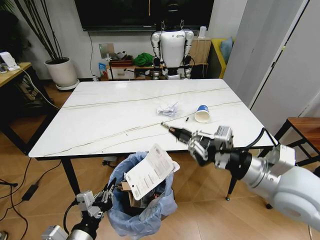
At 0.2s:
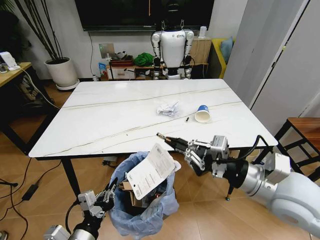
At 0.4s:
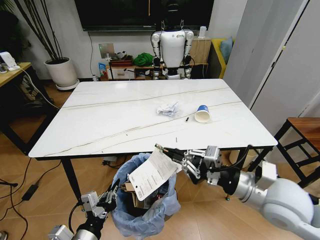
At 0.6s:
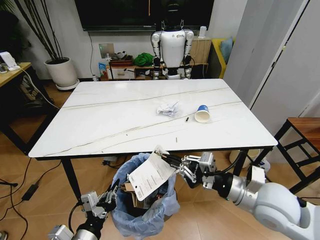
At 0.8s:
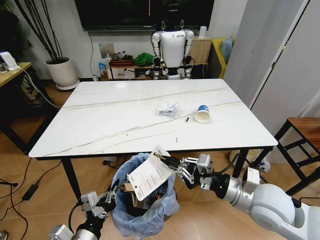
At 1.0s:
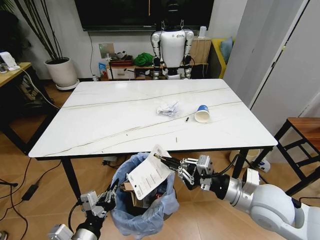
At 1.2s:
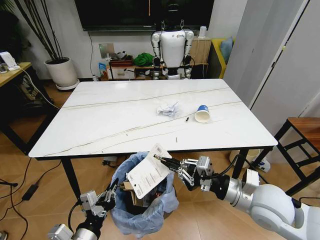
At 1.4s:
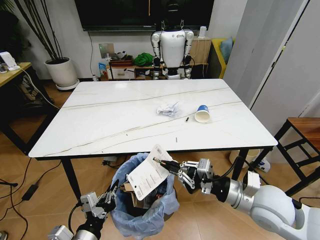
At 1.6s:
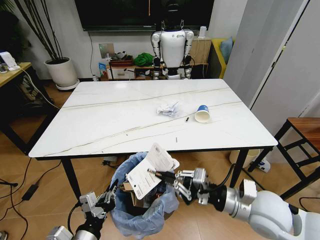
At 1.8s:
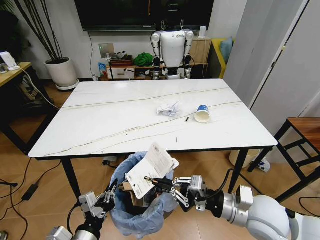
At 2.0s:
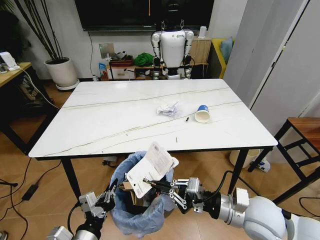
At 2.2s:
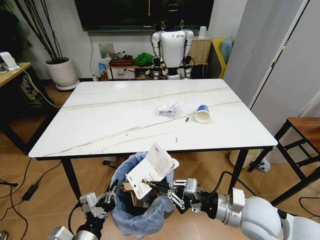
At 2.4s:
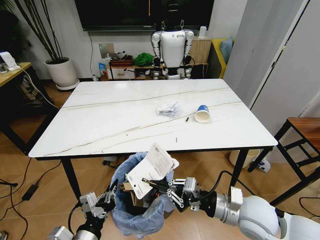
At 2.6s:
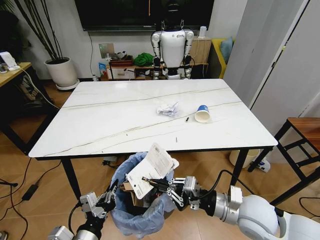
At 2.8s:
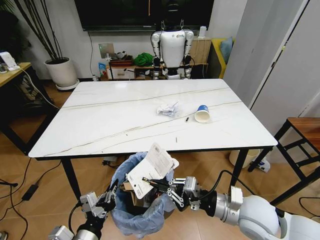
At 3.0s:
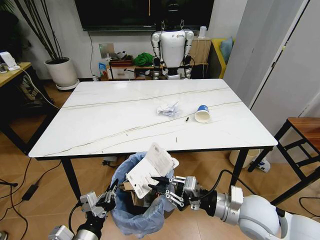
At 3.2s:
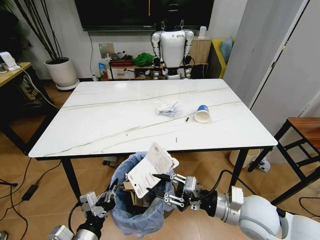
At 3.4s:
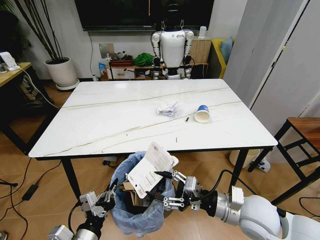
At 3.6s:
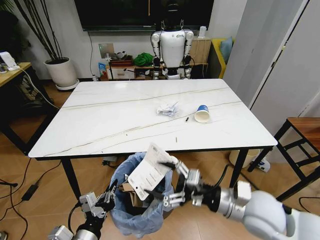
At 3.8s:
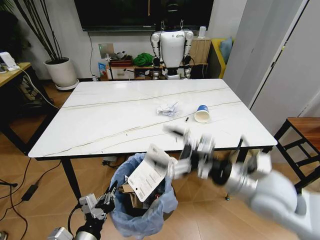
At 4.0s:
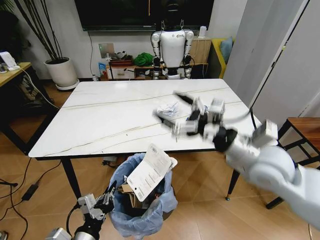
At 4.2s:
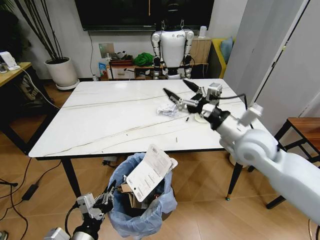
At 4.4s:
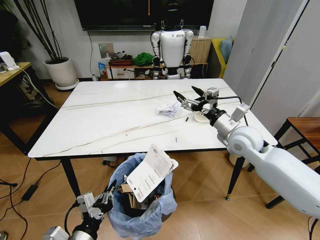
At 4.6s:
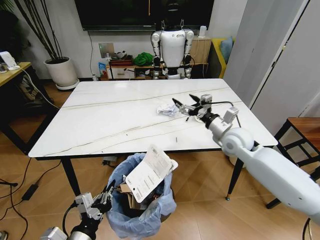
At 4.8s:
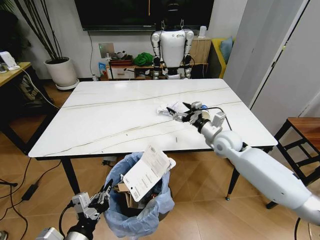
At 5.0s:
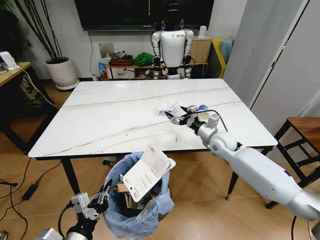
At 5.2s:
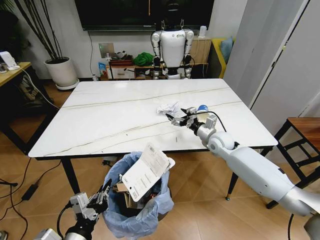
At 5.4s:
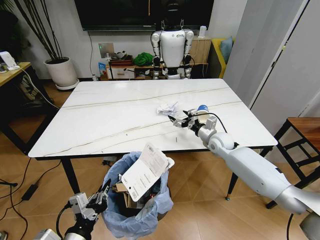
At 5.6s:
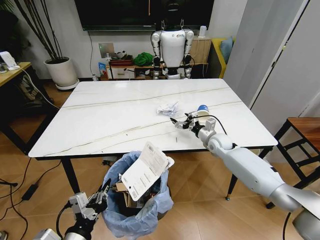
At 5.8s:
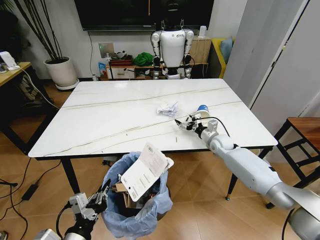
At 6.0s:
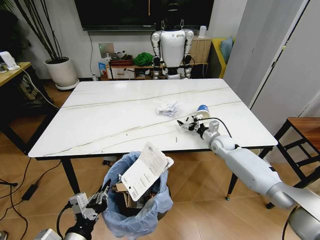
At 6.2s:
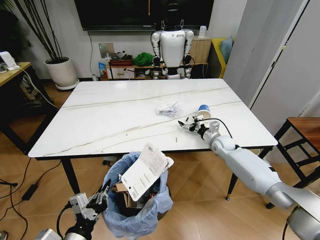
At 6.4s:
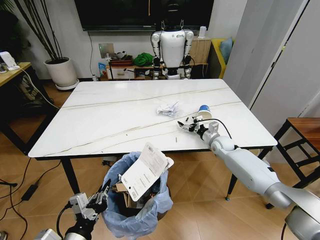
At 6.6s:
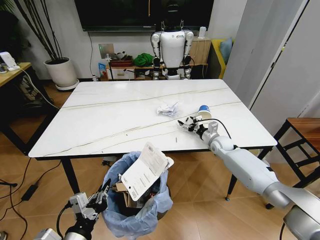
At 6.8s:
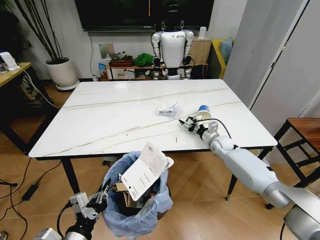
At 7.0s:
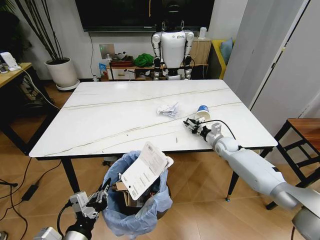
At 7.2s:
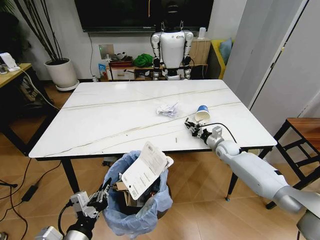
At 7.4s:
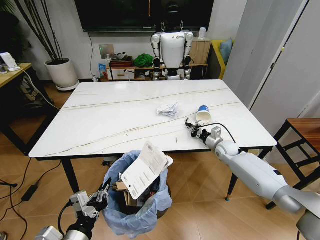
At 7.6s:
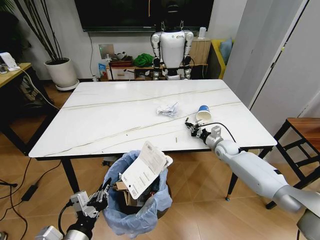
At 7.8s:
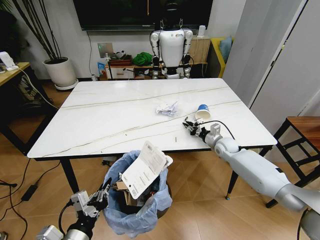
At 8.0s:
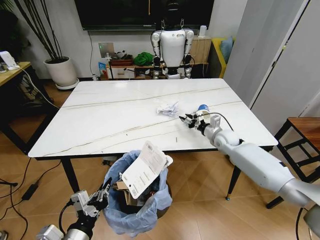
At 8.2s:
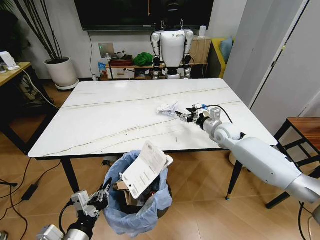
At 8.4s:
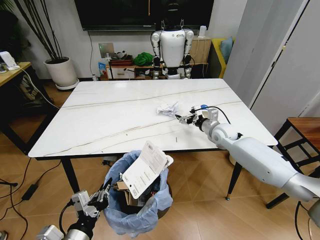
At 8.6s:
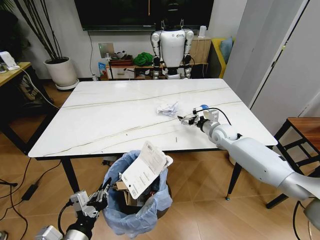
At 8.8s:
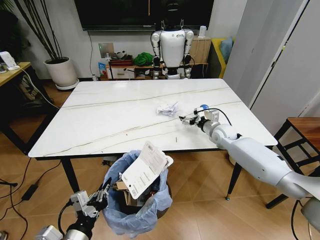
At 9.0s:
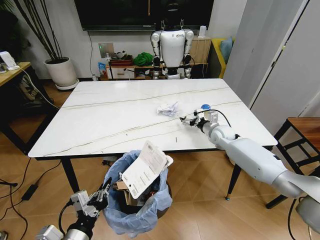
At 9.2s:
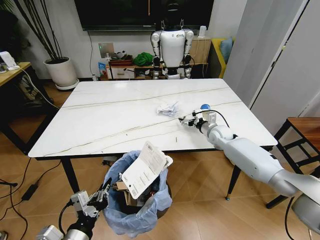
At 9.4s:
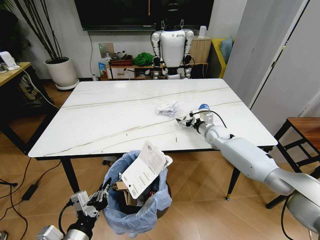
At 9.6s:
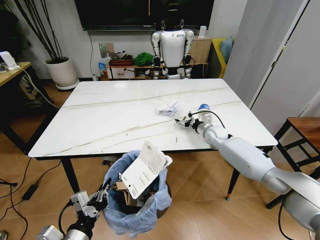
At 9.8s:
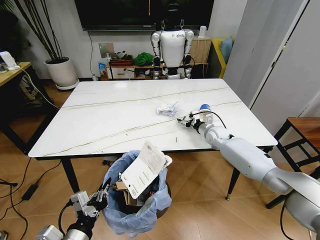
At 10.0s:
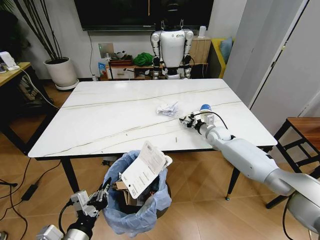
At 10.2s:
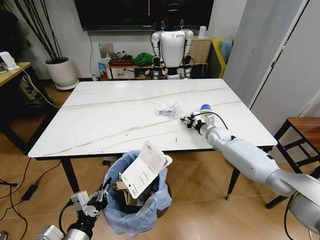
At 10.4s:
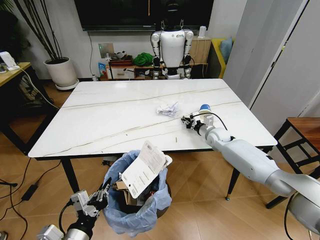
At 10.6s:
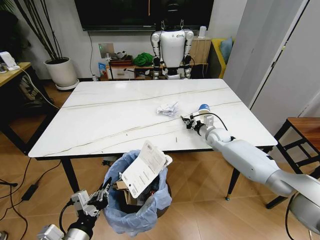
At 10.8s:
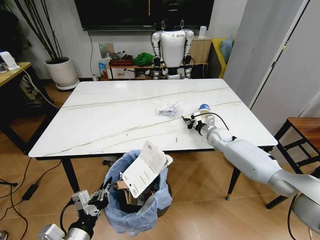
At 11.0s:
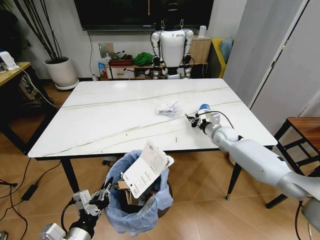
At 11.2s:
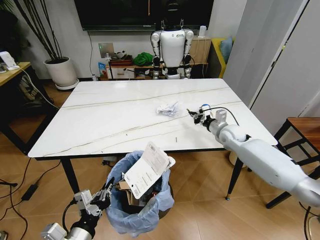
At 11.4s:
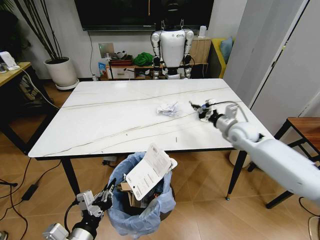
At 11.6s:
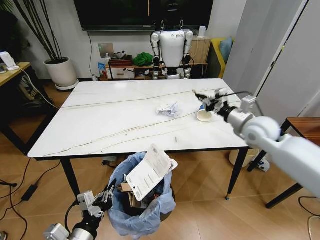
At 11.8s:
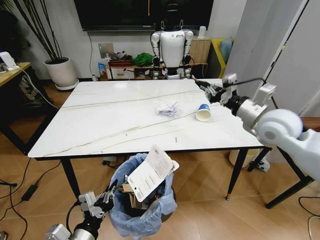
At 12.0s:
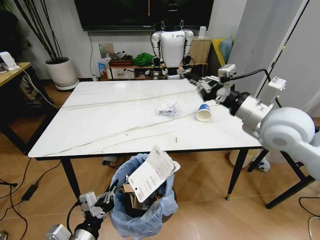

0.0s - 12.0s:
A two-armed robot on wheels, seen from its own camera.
Task of the whole recording: Pick up the trash bin and place the trash from the table into it.
0.0s - 1.6s: The right gripper goes roughly 10 cm downward.
1.6s - 3.0s: There are only small adjustments of the grippers.
3.0s - 4.4s: The right gripper moves forward and upward, about 20 cm, and opens its fingers.
4.4s - 6.0s: The right gripper shifts about 25 cm downward and forward.
6.0s - 7.6s: The right gripper closes.
7.6s - 9.0s: The right gripper moves upward, approximately 5 cm, and opens.
9.0s - 10.4s: The right gripper closes up.
10.4s - 12.0s: The right gripper shifts some 35 cm upward and backward.

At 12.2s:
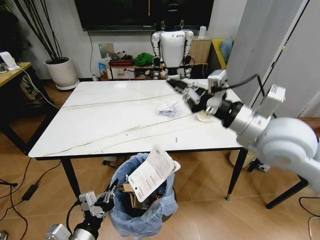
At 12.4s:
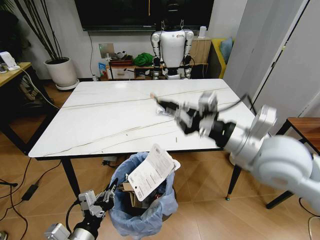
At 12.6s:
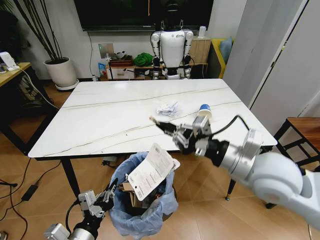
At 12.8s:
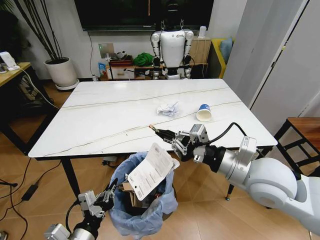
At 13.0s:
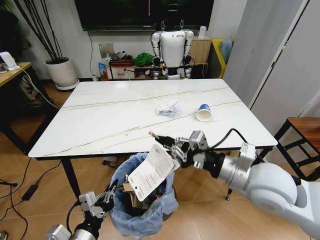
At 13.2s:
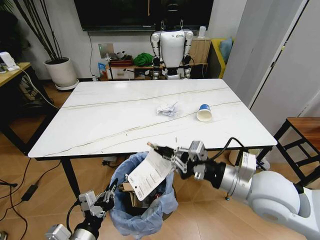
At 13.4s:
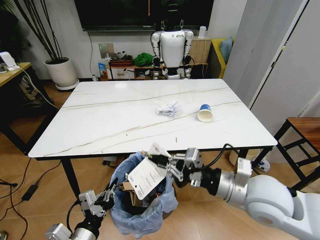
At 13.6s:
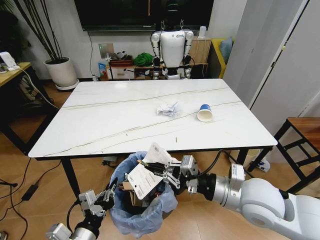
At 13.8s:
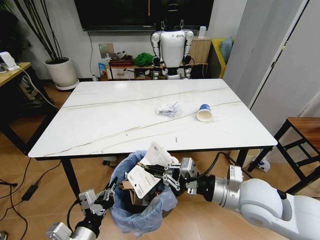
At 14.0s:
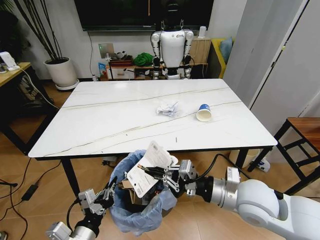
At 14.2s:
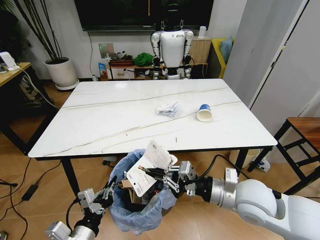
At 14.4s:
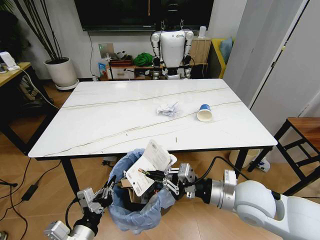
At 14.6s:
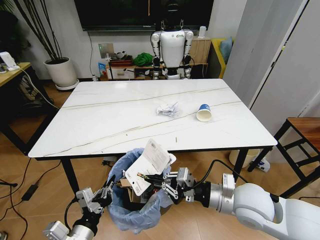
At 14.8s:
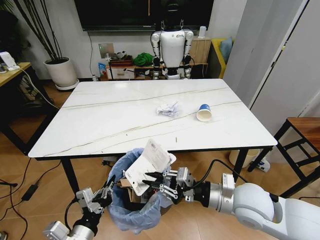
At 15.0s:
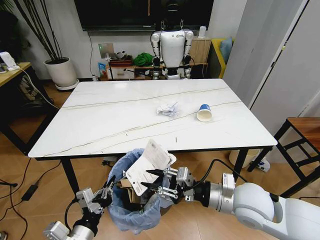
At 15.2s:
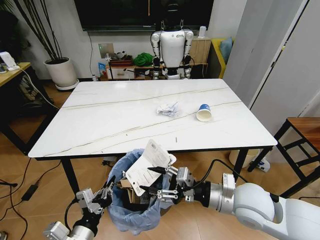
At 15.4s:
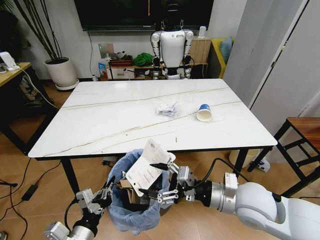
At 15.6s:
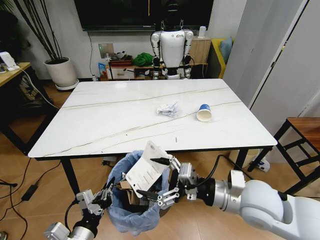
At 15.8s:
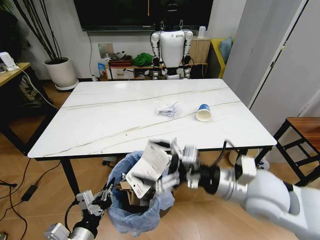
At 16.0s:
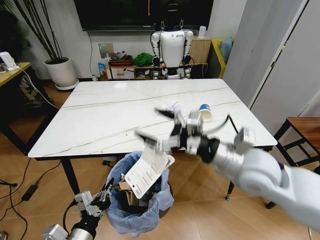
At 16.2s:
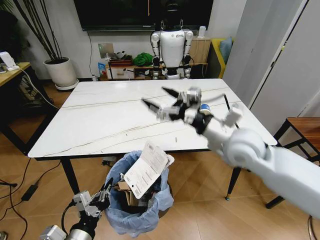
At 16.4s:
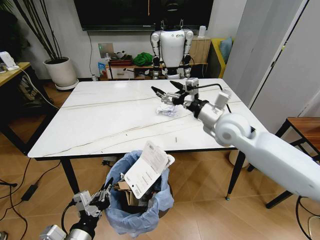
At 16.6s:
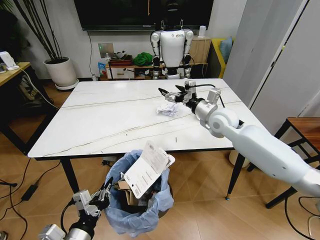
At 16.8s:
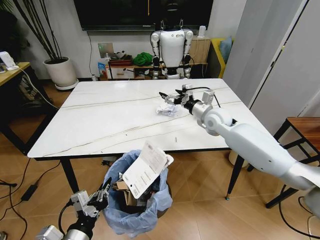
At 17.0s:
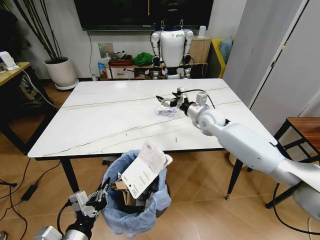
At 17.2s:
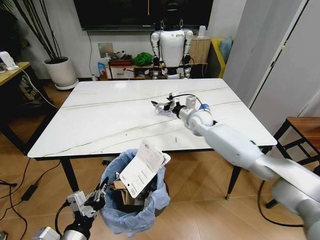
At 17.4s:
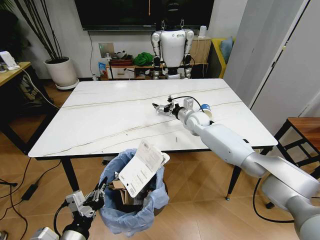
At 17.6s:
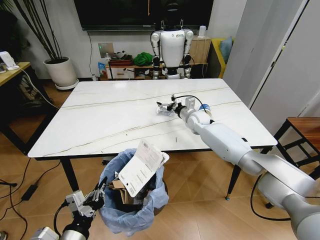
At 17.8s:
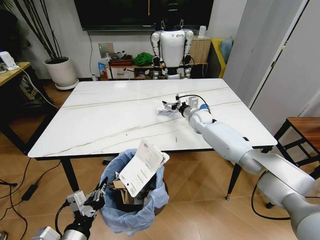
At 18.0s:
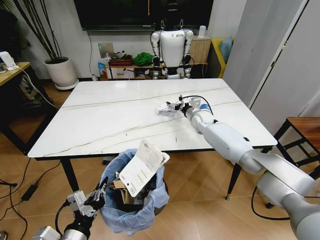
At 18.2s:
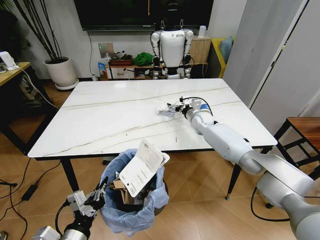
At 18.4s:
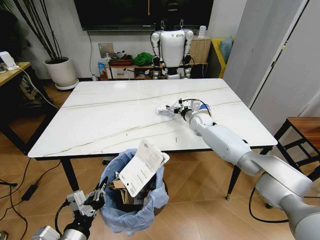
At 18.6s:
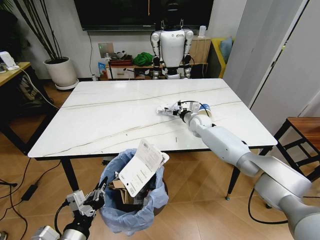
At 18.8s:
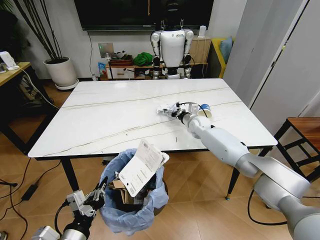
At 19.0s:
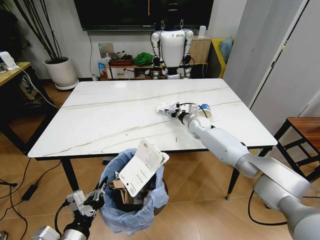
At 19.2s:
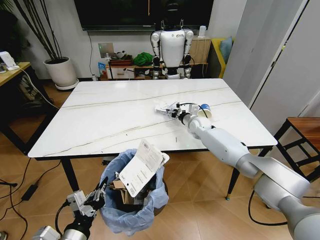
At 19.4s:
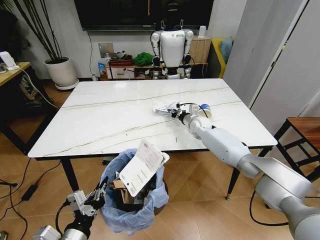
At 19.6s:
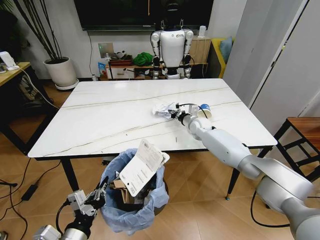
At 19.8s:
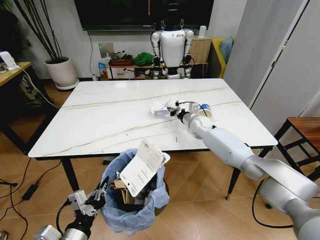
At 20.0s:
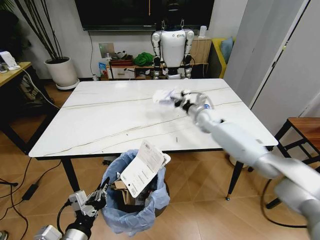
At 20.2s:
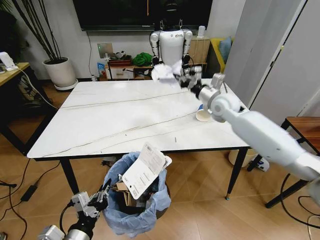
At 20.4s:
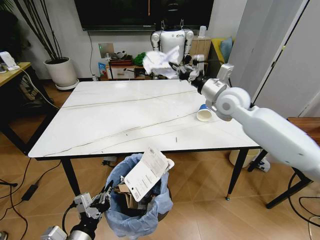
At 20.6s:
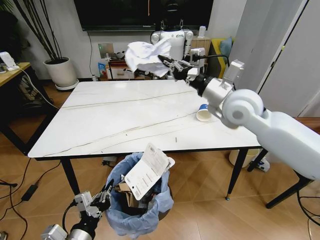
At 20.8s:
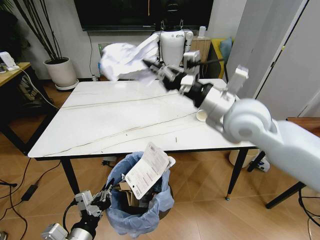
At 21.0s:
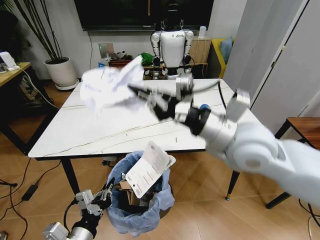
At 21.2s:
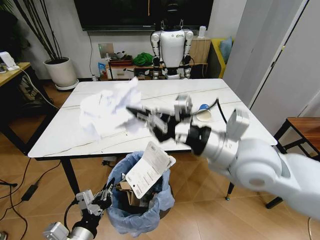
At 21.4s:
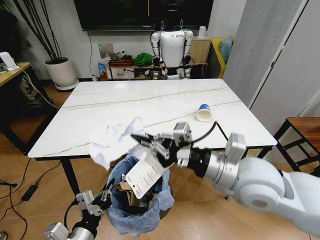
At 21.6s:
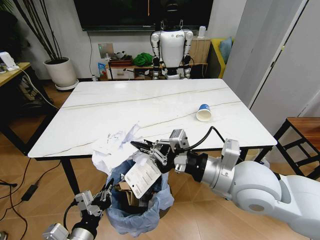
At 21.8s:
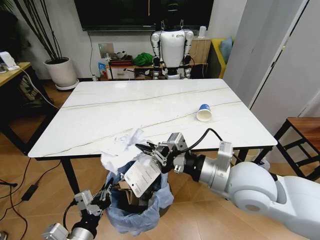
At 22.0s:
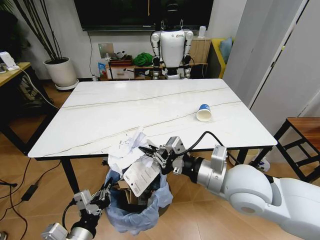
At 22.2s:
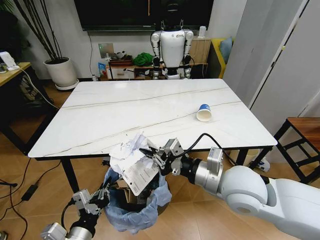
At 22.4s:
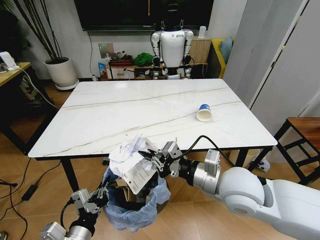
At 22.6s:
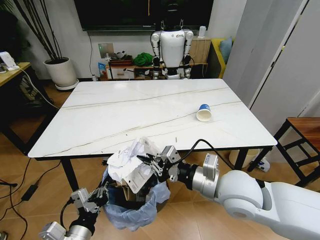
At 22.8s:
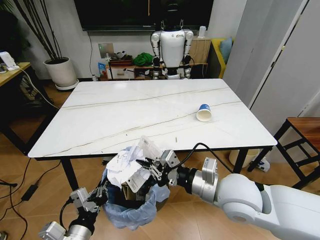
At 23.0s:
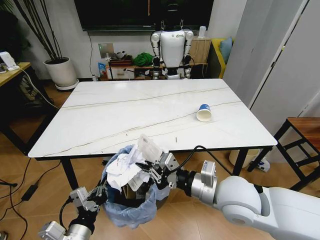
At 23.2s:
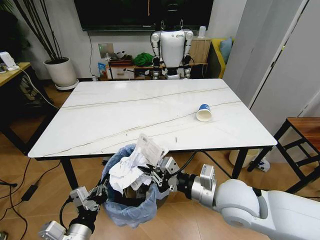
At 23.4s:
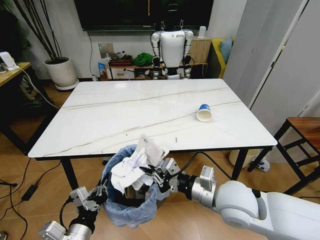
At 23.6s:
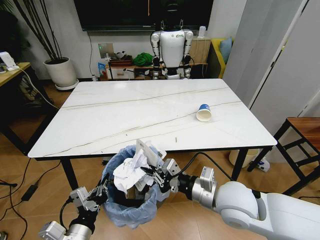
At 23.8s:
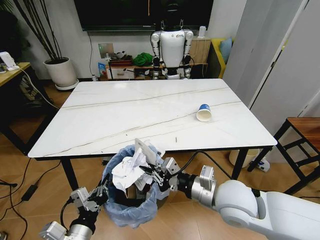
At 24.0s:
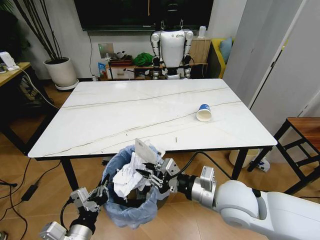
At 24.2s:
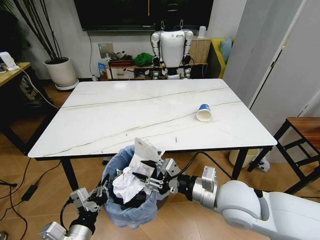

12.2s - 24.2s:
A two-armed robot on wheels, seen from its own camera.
Task of the whole recording: Pick up the trash bin and place the trash from the table into it.
12.2s - 13.8s: The right gripper shifts roughly 15 cm downward and backward.
13.8s - 15.2s: The right gripper opens its fingers.
15.2s - 16.6s: The right gripper shifts about 25 cm forward, and opens up.
16.6s - 18.2s: The right gripper moves forward and downward, some 15 cm.
18.2s - 19.8s: The right gripper closes up.
19.8s - 21.2s: The right gripper shifts some 40 cm backward and upward.
21.2s - 22.6s: The right gripper goes some 10 cm downward.
22.6s - 24.2s: The right gripper opens up.
